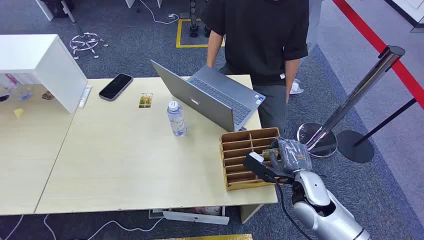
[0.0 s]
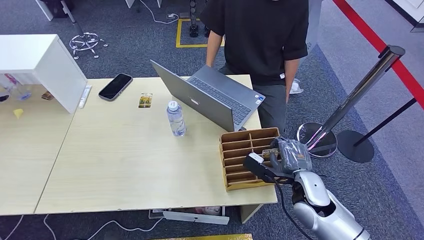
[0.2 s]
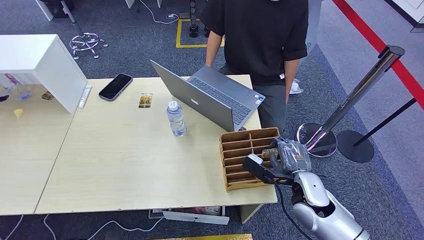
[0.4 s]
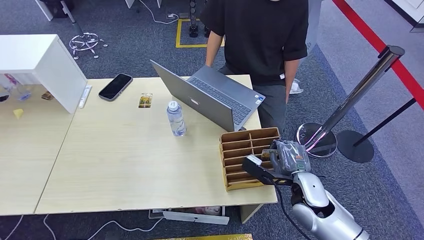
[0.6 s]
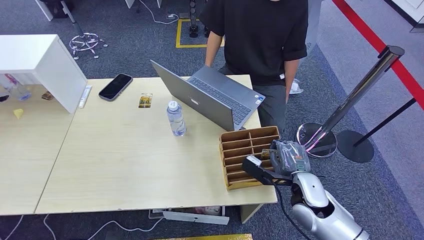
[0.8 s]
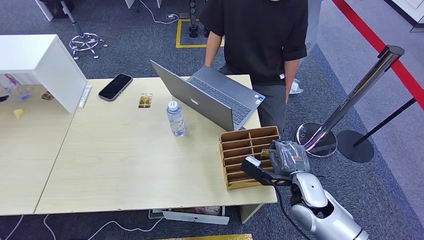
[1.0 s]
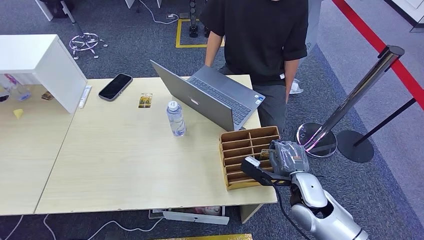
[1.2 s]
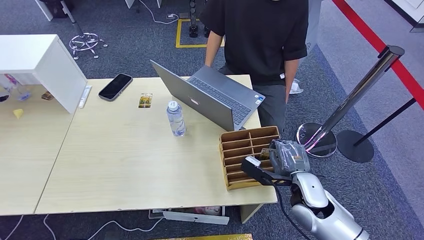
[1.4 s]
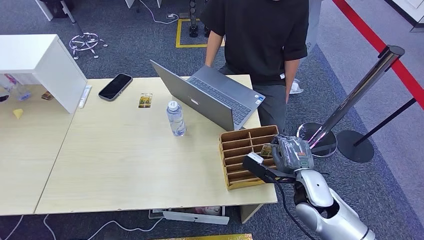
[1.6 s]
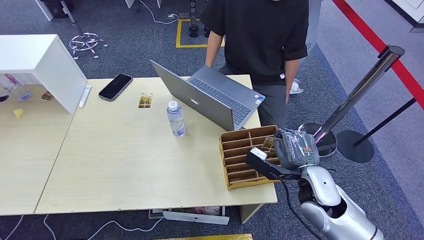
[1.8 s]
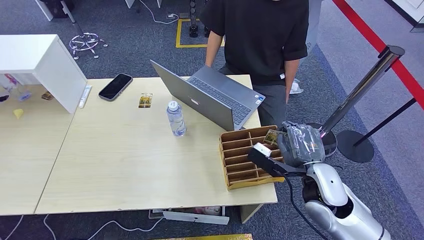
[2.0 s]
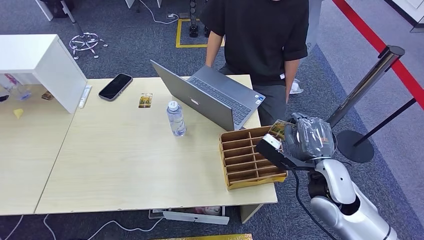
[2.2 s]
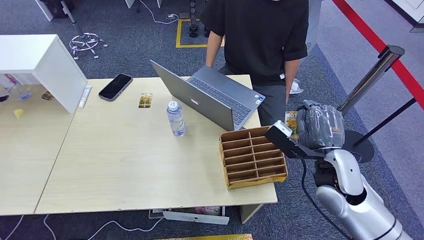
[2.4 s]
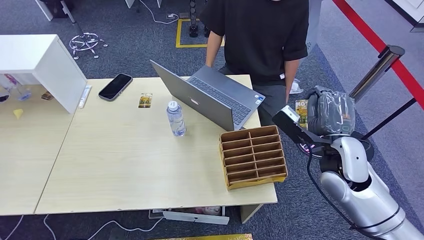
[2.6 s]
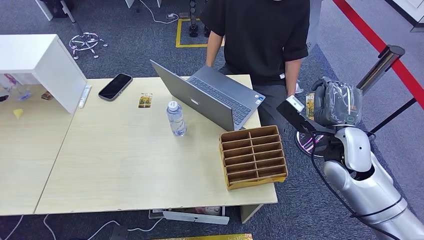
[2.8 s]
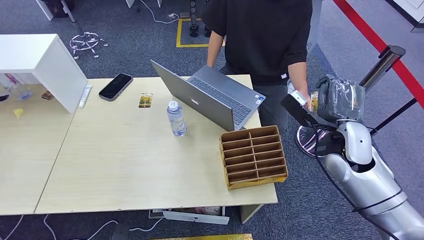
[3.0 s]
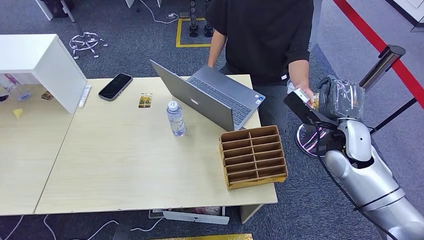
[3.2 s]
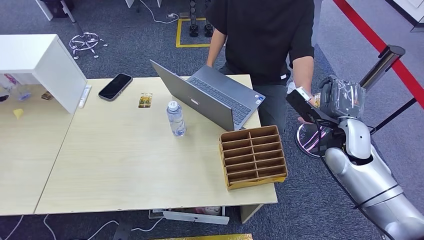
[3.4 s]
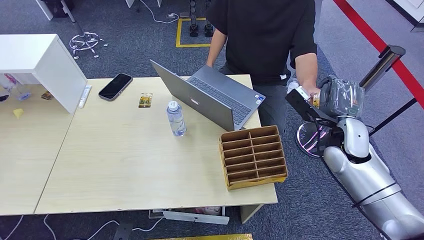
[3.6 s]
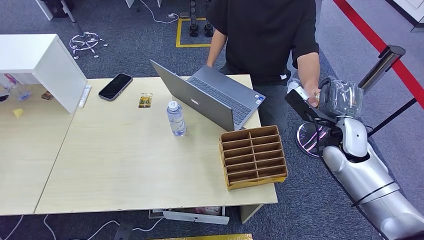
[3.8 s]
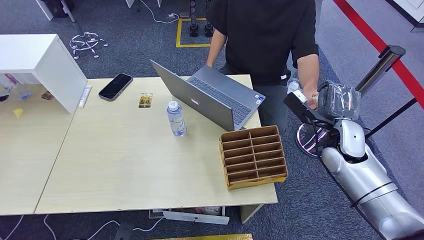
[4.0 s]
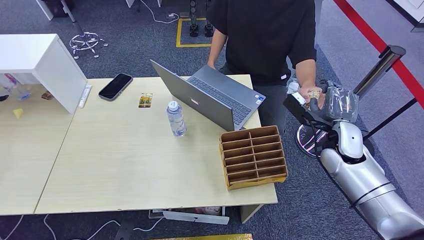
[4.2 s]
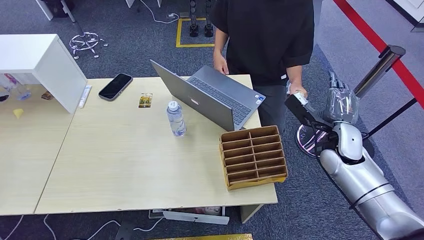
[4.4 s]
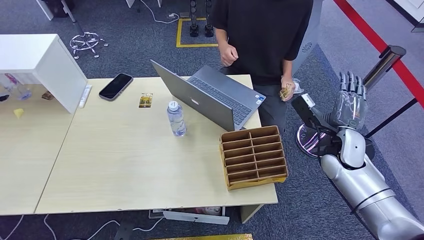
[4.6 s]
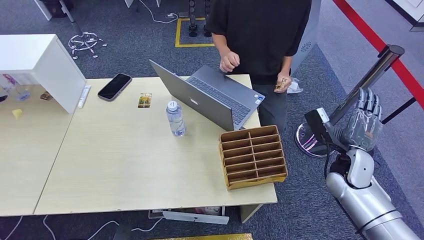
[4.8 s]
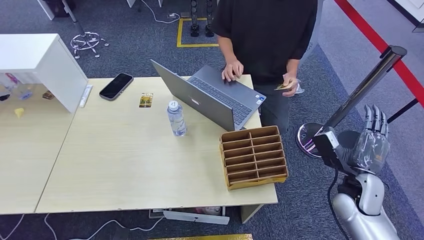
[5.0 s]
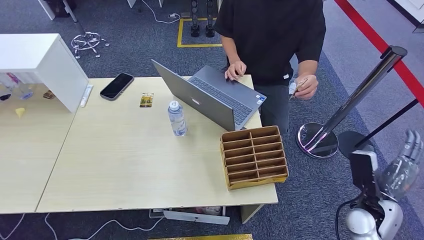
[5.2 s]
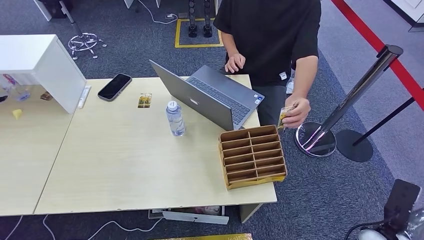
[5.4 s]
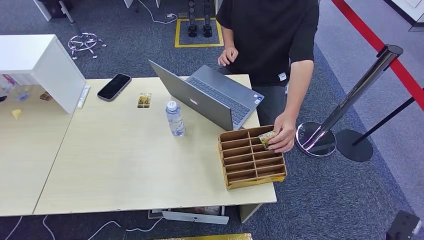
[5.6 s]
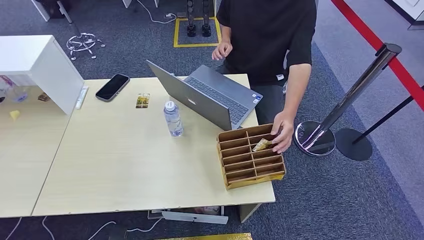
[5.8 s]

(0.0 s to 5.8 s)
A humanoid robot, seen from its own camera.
Step, 0.0 s - 2.0 s: Pick up the key card from the card box.
Step, 2.2 s - 5.6 s: Hand the key card to the target.
1.4 s - 2.8 s: The right hand travels upward, to the right and forward by approximately 15 cm.
2.8 s - 4.4 s: The right hand changes place by some 10 cm.
4.4 s - 5.8 s: The right hand goes roughly 40 cm backward and downward.
